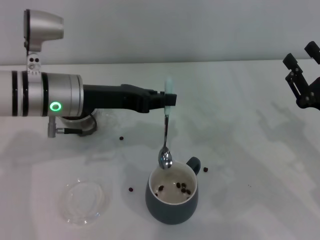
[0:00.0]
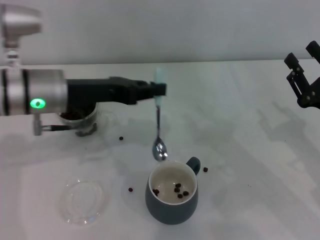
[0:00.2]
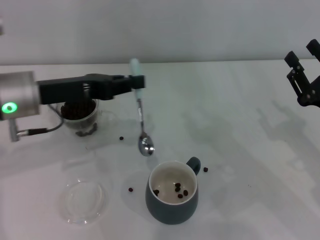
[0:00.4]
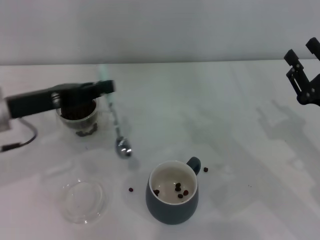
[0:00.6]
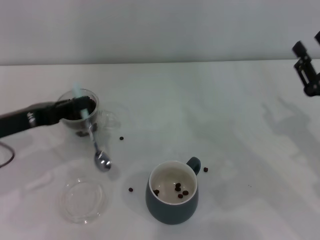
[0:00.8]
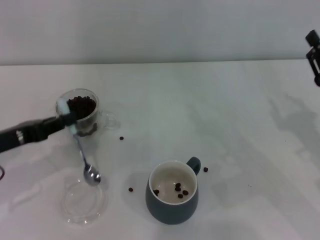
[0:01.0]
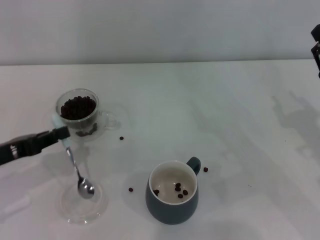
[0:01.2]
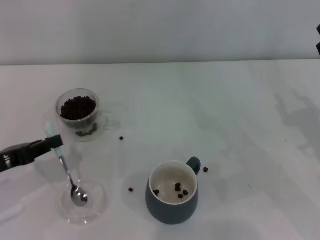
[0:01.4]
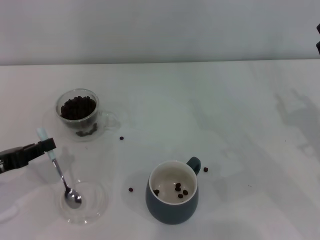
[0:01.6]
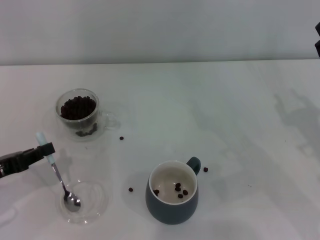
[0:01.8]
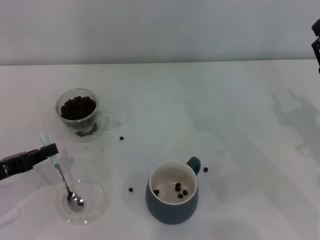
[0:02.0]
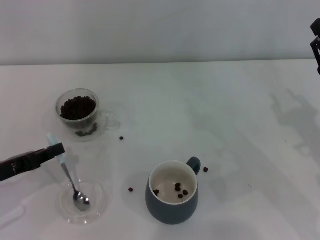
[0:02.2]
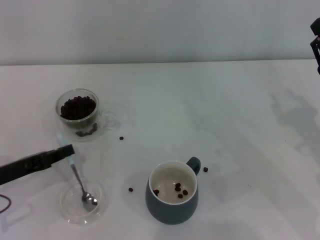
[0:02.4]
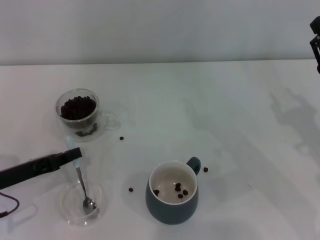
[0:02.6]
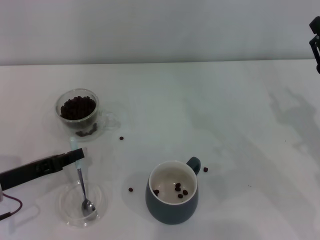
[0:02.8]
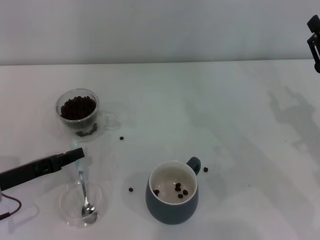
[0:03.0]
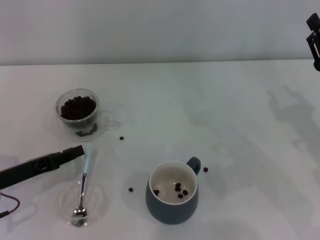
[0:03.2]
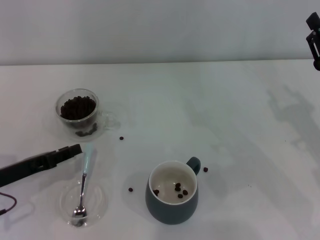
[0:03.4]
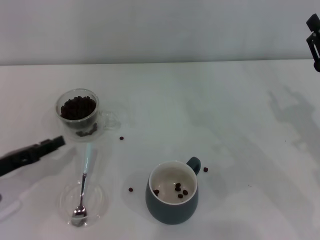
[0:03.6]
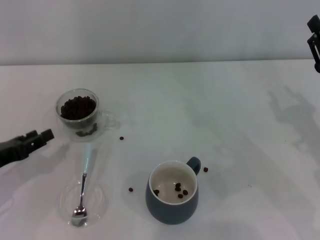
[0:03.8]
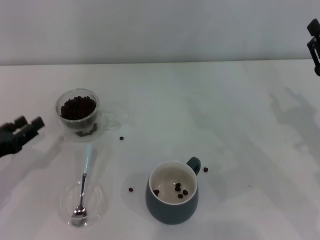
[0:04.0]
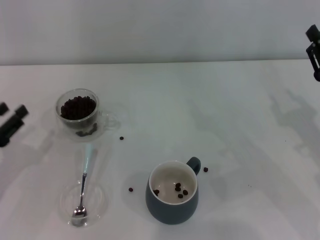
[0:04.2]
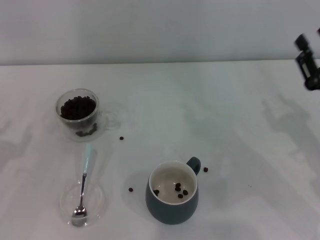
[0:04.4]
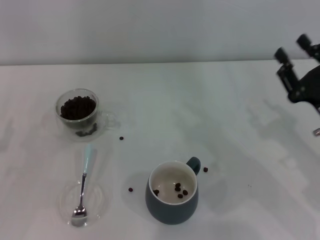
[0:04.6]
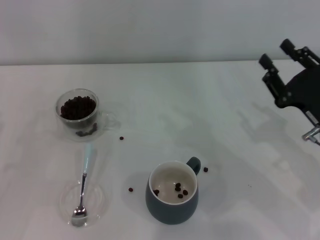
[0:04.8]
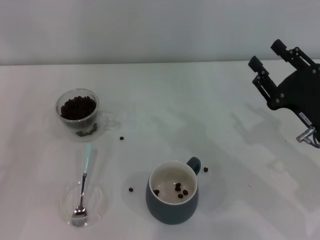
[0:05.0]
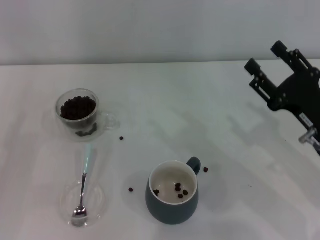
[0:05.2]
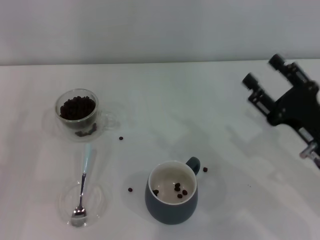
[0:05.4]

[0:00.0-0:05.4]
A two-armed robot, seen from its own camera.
Task of the whole recording: Use a blue spoon to take out the coffee beans from the glass and pour them into the gray cup.
Step, 0:00.4 to 0:03.4: Place the spoon back in its original place with the right gripper.
0:00.0 to 0:01.4: The left gripper is displaced to the left, backward and downward by roughly 20 cm.
0:01.4 to 0:02.8: There are only small adjustments of the grippers.
0:02.8 to 0:04.0: The left gripper opens up.
0:04.0 to 0:05.4: The right gripper changes place by about 5 cm. The left gripper ends up some 5 cm from where it was.
